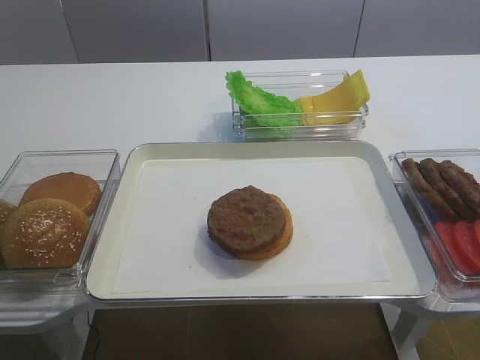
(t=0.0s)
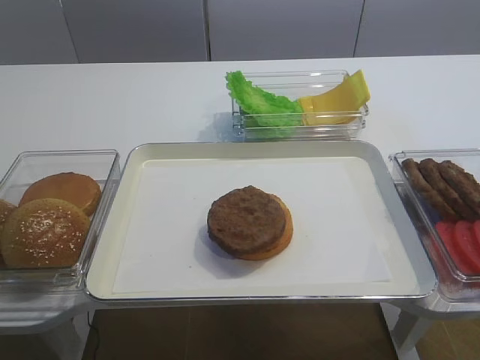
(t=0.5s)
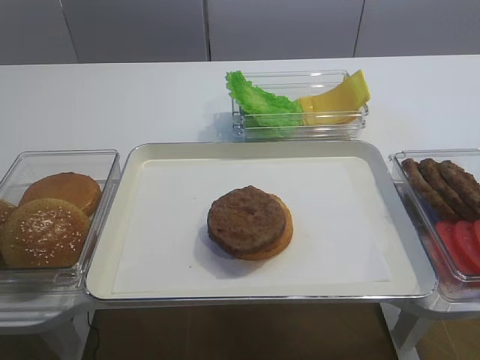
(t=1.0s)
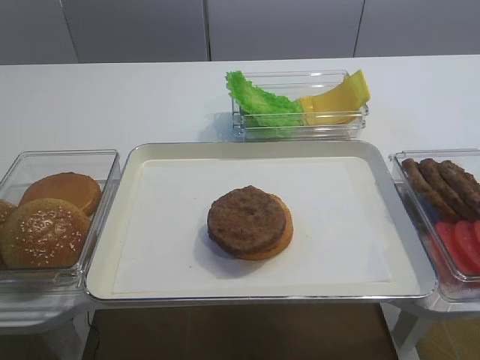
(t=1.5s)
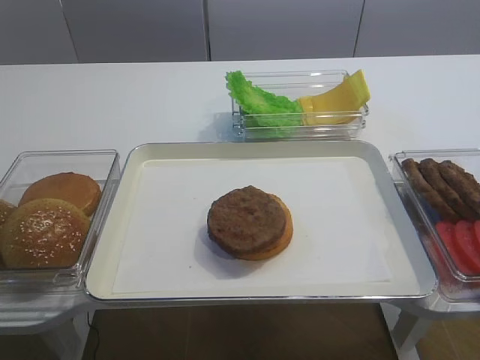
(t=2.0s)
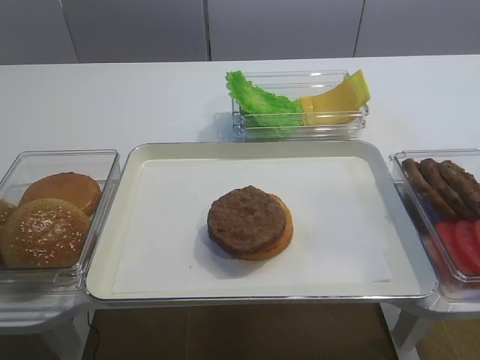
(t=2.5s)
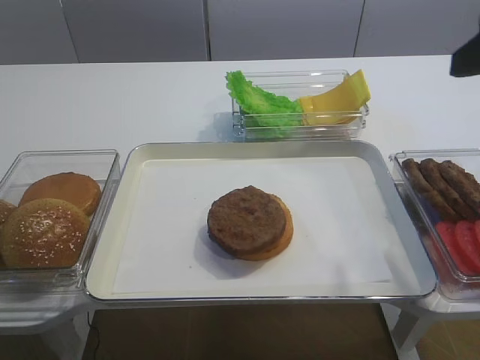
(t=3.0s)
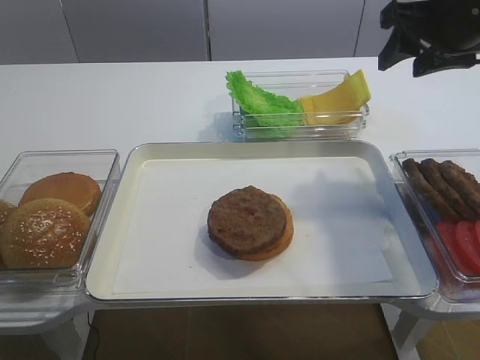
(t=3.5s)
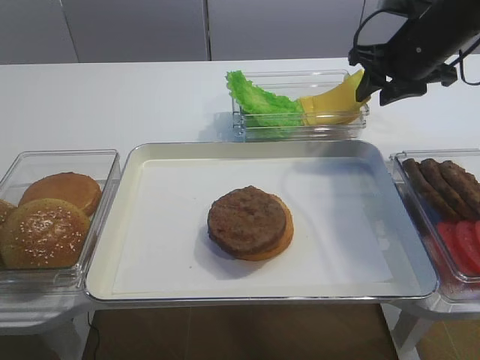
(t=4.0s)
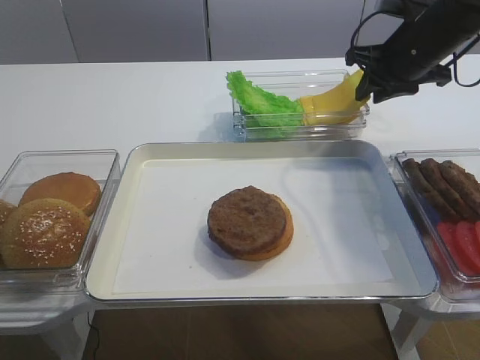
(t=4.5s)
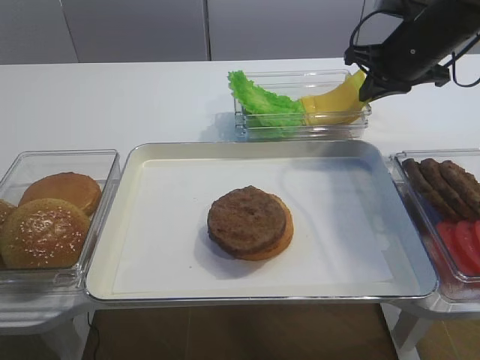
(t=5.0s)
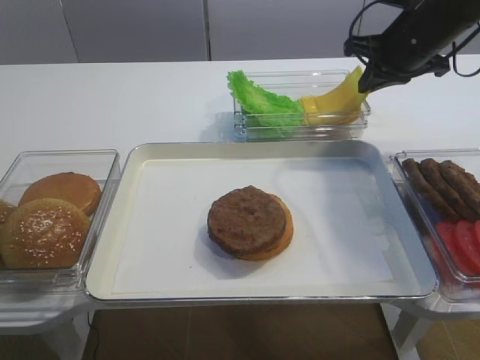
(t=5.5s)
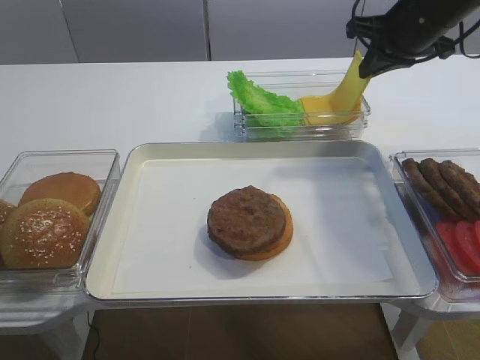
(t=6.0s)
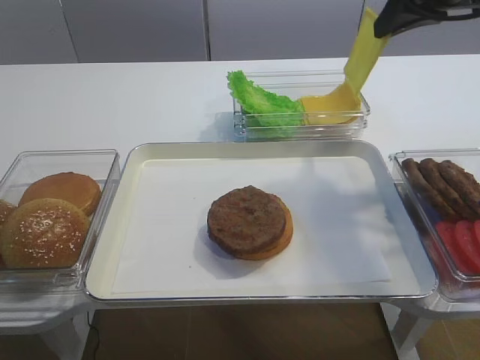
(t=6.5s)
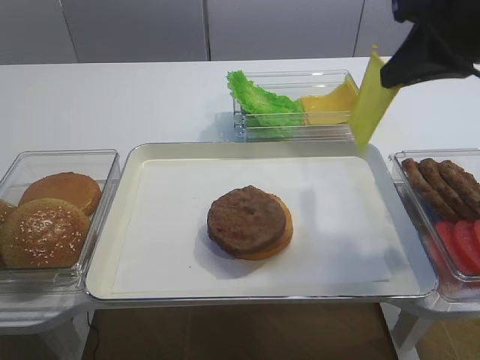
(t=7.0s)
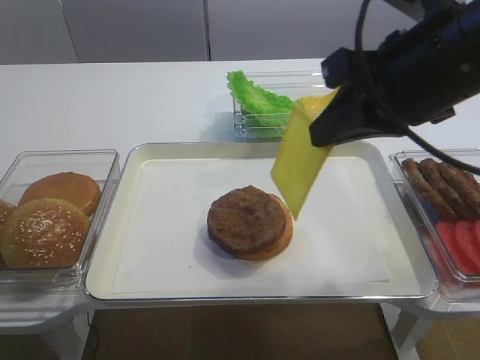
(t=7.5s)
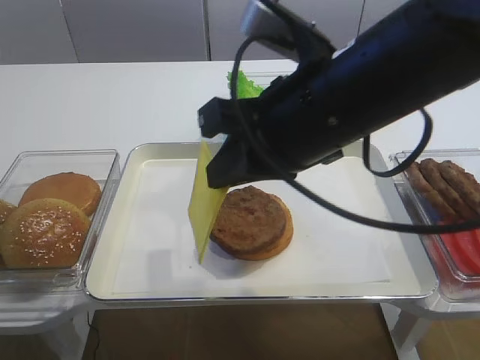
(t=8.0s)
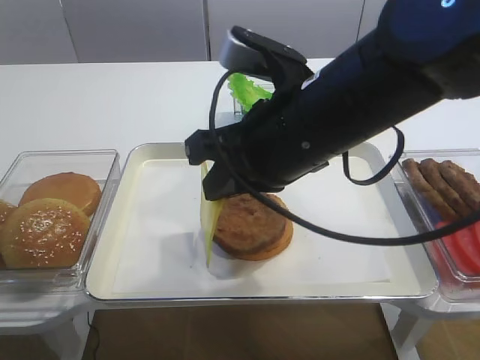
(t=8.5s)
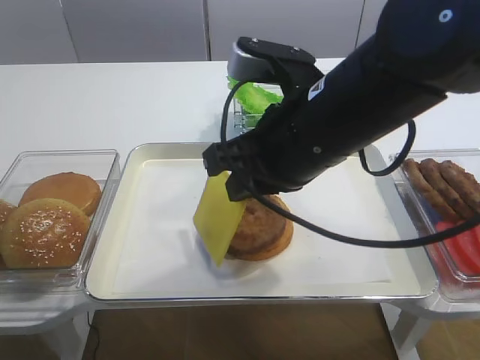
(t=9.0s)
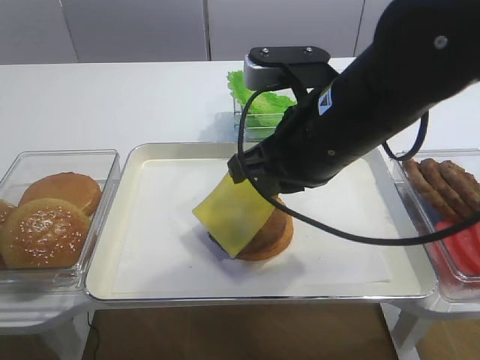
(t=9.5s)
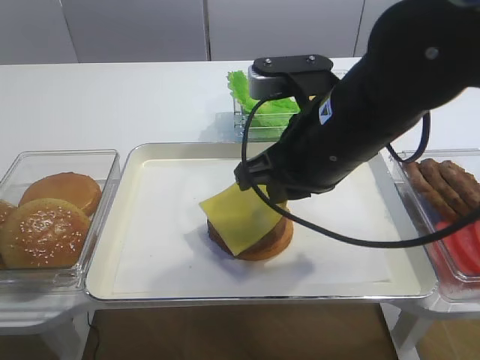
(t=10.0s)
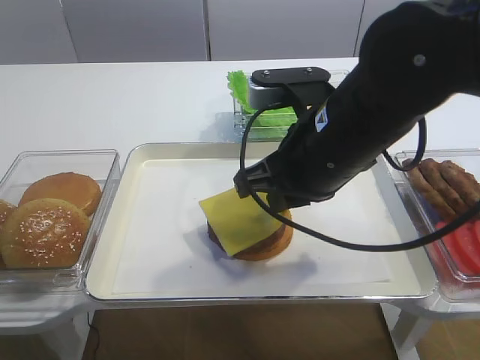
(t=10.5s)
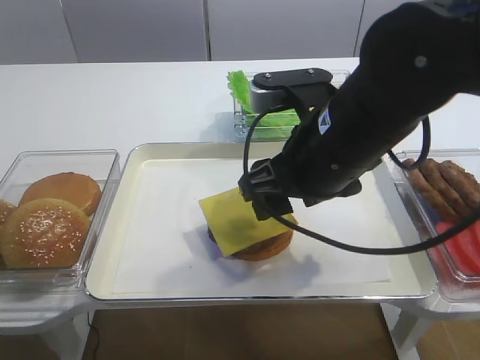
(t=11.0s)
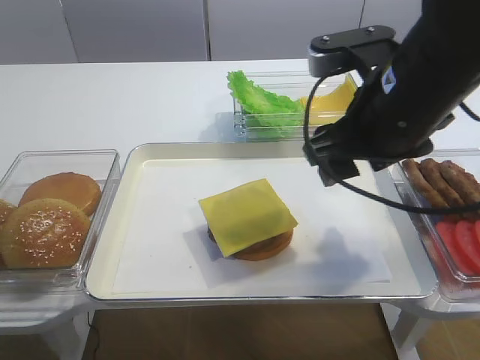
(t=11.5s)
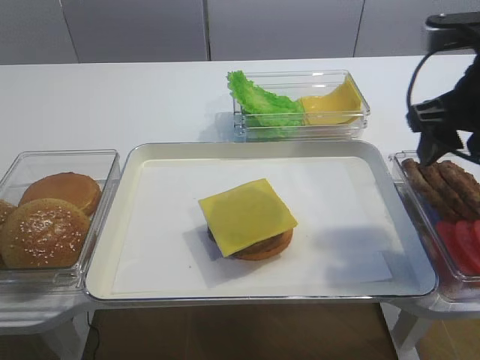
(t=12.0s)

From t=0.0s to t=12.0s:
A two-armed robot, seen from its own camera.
Step, from t=0.0s to t=6.0s: Pick up the cheese slice with the right gripper.
Step, from t=6.5s to t=11.0s: Place the cheese slice on the cutlet with the right gripper.
From t=2.0s to t=4.0s: The right gripper heads forward, covering roughly 40 cm.
From t=4.0s to t=6.0s: The right gripper closes its fingers.
From t=6.0s to t=8.0s: The right gripper goes about 25 cm backward and to the left.
From t=10.0s to t=12.0s: The right gripper is displaced to the right by about 15 cm, and opens up.

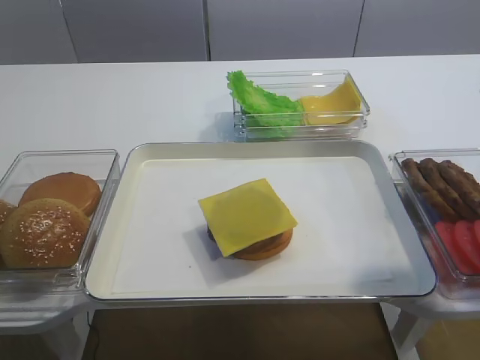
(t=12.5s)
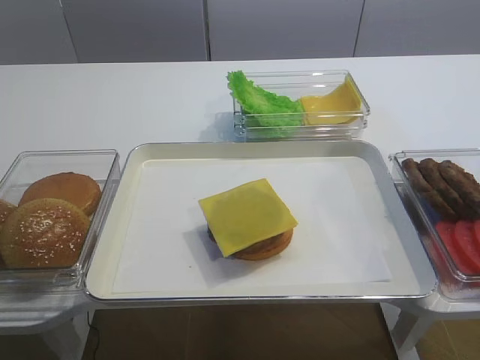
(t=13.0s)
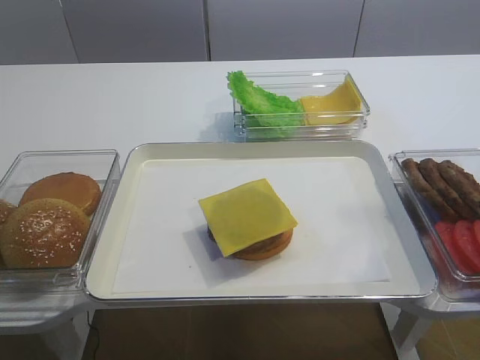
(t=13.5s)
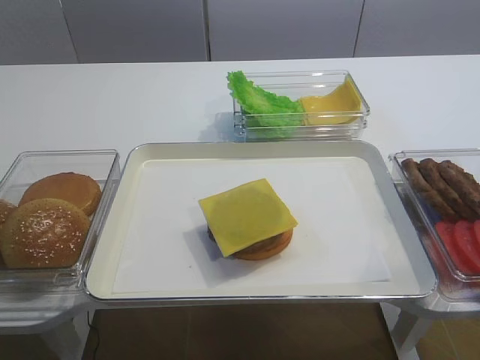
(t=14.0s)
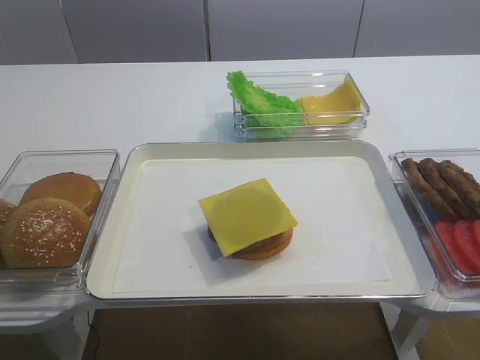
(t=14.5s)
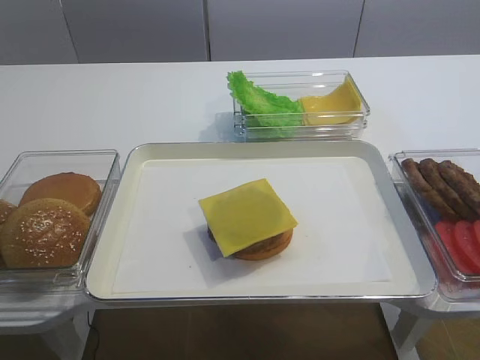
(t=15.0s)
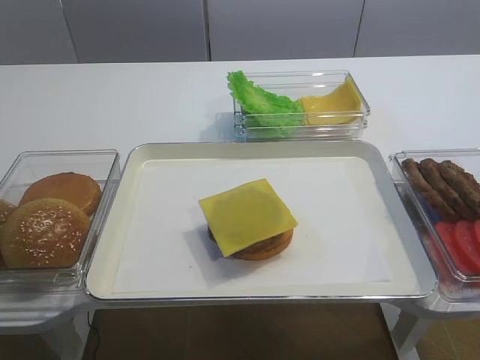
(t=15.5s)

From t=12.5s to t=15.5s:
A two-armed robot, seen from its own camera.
From t=12.5s to t=14.0s: The right gripper moves backward, roughly 25 cm.

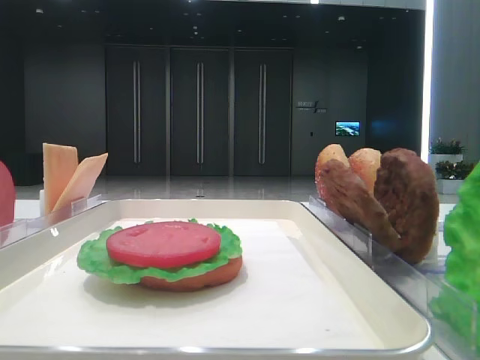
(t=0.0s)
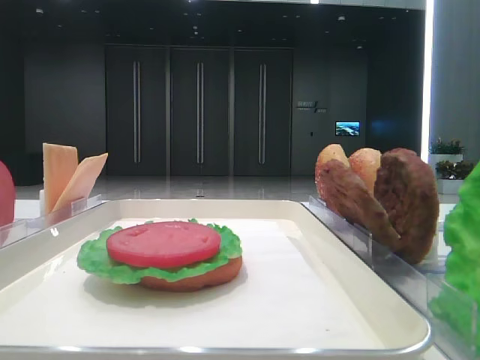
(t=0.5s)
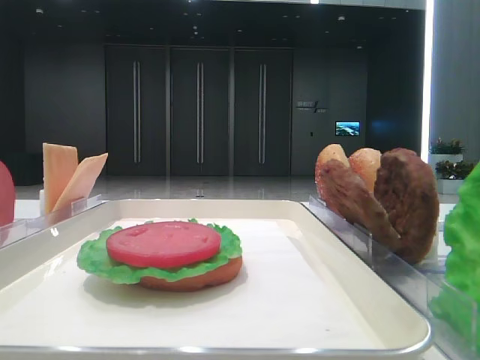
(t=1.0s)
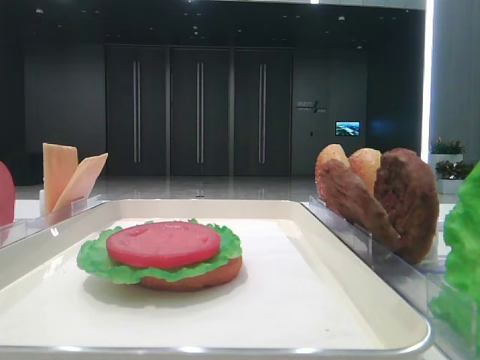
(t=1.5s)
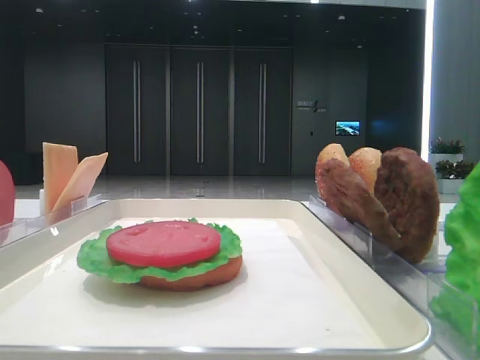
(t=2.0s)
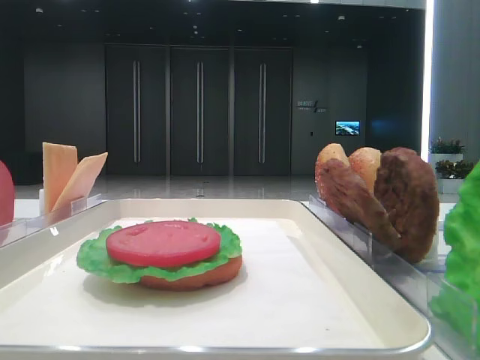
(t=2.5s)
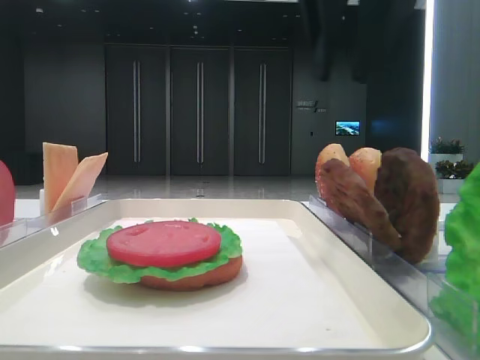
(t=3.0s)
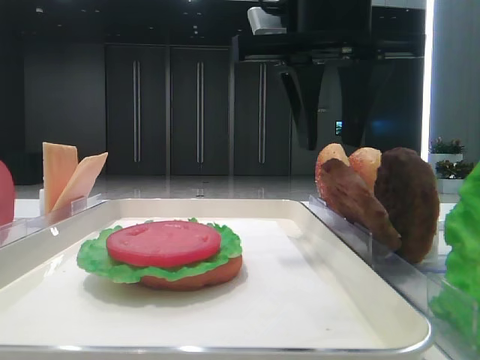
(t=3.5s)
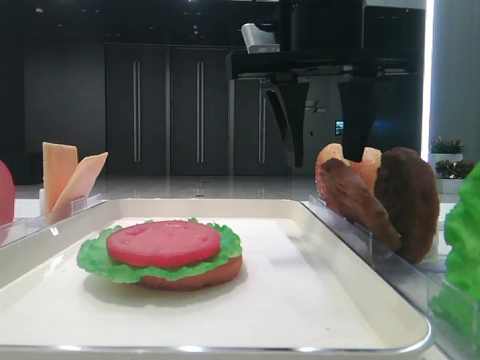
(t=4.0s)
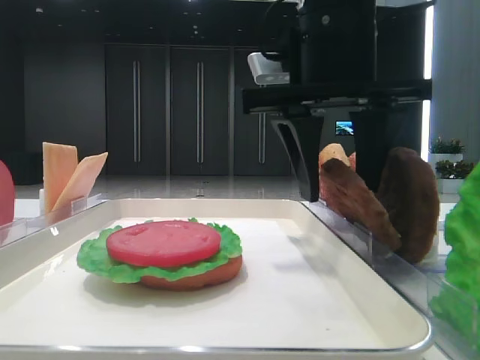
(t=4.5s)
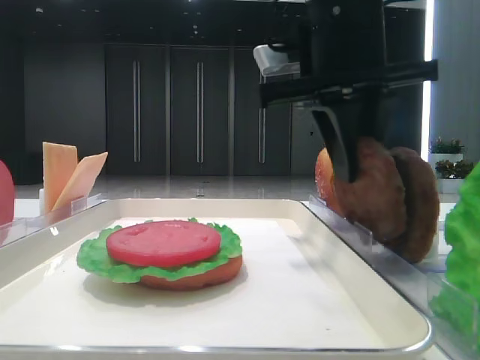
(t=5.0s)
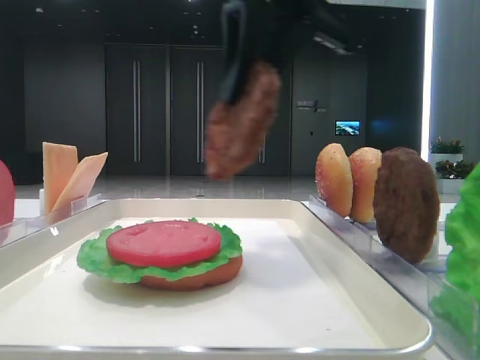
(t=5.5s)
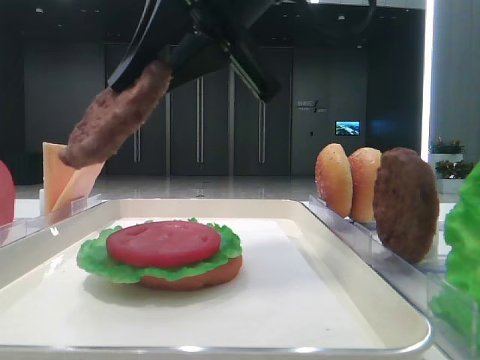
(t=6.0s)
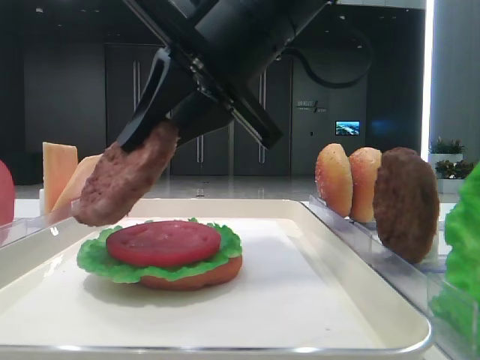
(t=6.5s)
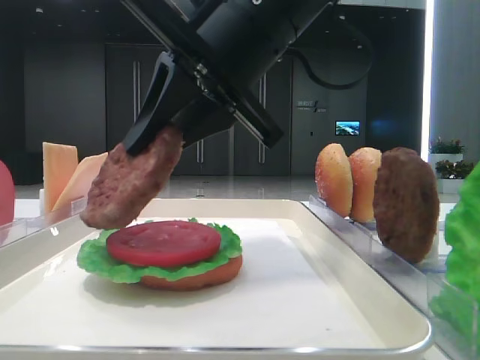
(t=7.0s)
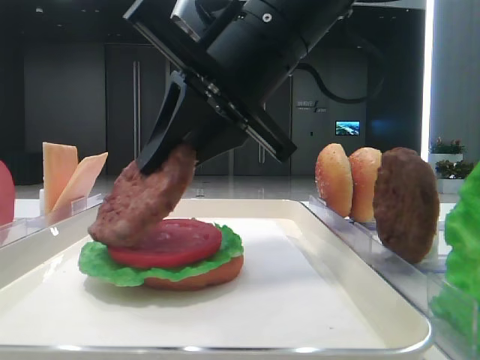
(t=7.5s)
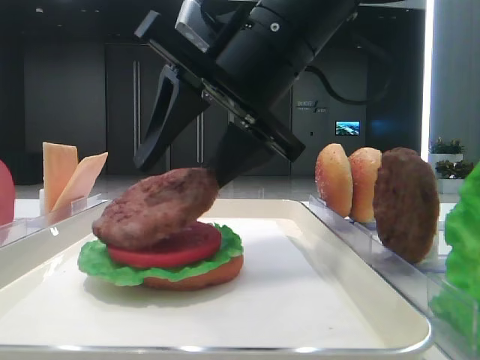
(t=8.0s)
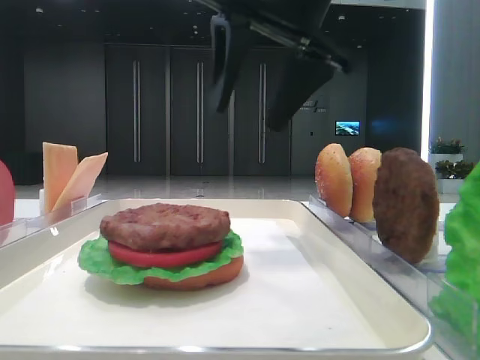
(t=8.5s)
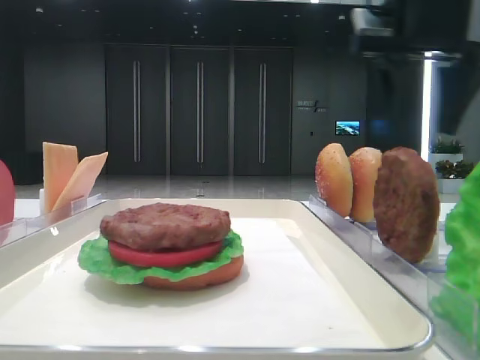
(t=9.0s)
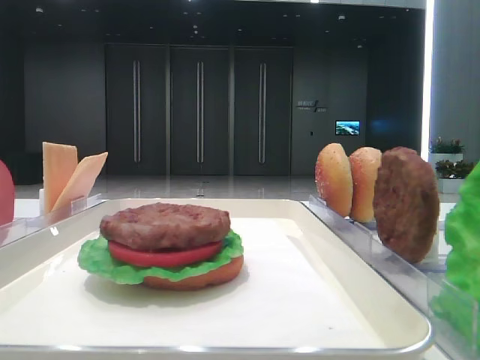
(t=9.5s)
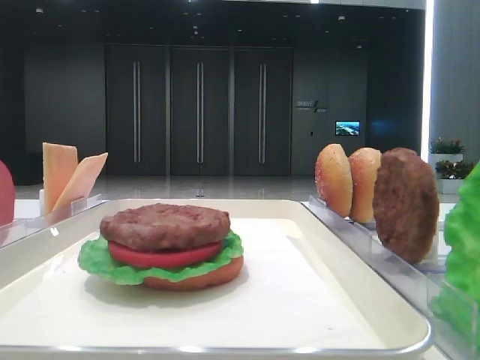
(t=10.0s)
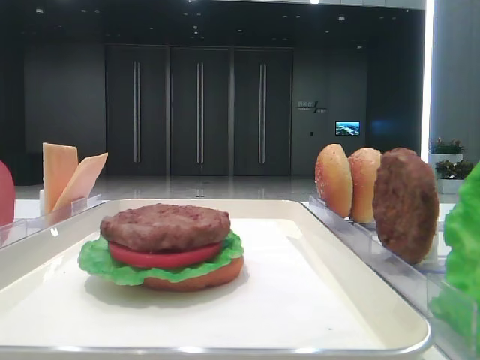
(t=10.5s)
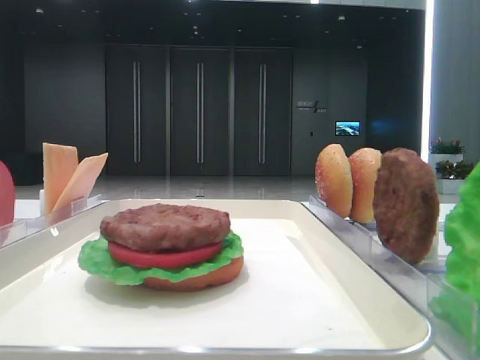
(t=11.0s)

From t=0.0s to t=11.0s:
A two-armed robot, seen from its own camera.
Step, from t=0.0s to t=4.5s: Grab the patty with the right hand.
Step, from t=5.0s to t=8.0s: Place the patty on the tomato slice with the right hand.
From t=2.0s to t=3.5s: The right gripper heads to the left and forward, covering about 25 cm.
From t=3.5s to t=5.5s: The right gripper closes.
From t=5.5s to t=7.5s: The right gripper heads downward, covering roughly 10 cm.
From t=7.5s to t=9.0s: The right gripper shifts approximately 20 cm to the right, forward and upward, and opens its fingers.
From t=9.0s to t=11.0s: The right gripper is displaced backward by about 40 cm.
